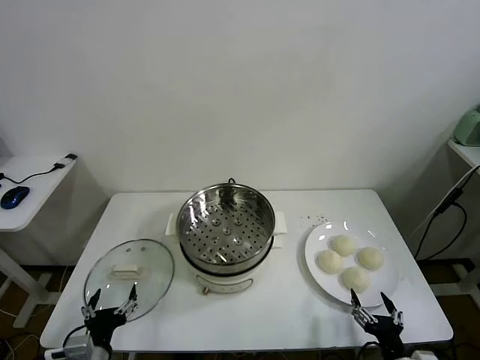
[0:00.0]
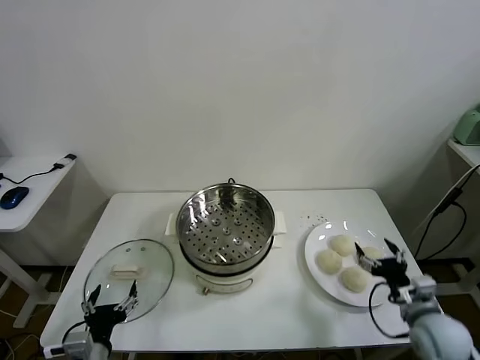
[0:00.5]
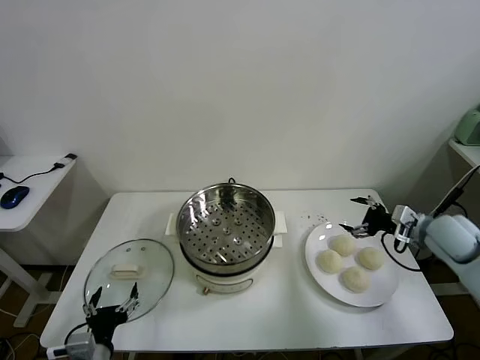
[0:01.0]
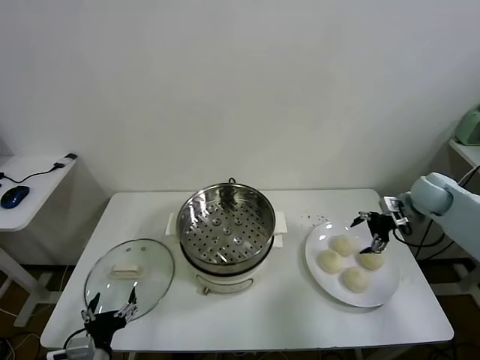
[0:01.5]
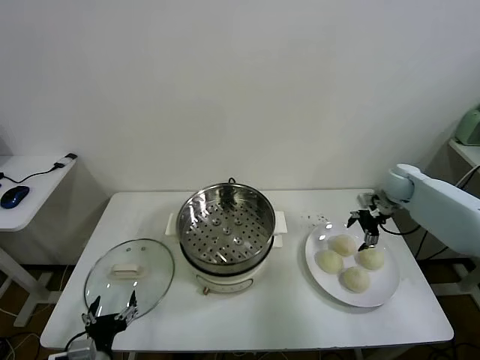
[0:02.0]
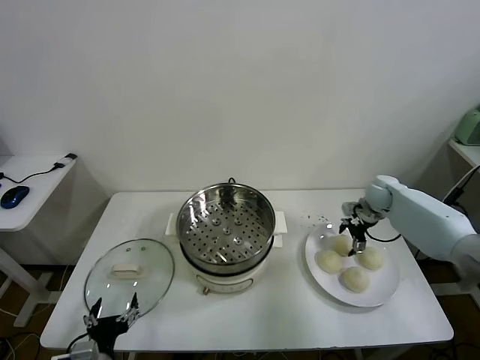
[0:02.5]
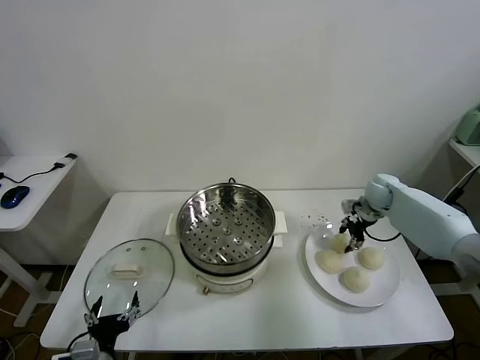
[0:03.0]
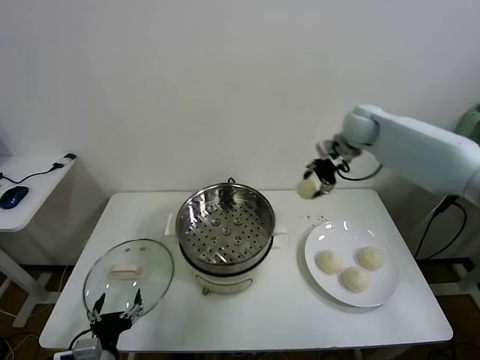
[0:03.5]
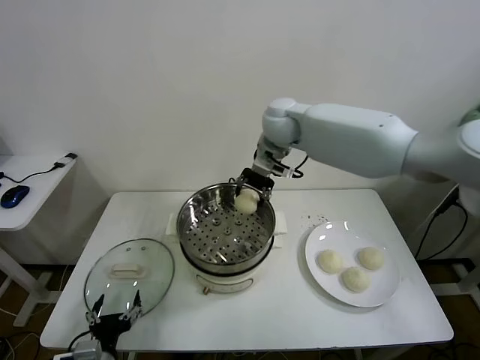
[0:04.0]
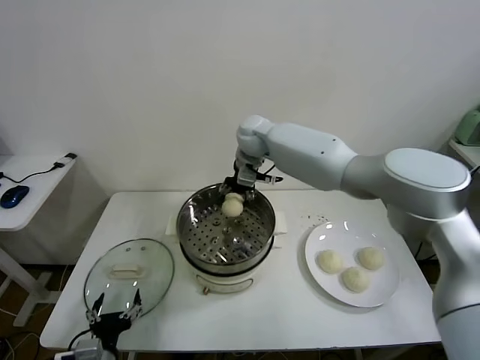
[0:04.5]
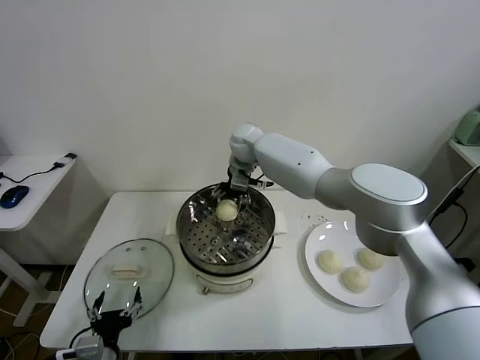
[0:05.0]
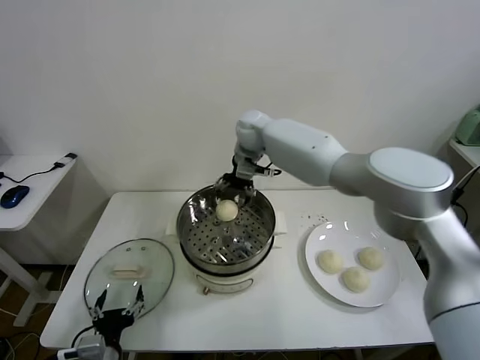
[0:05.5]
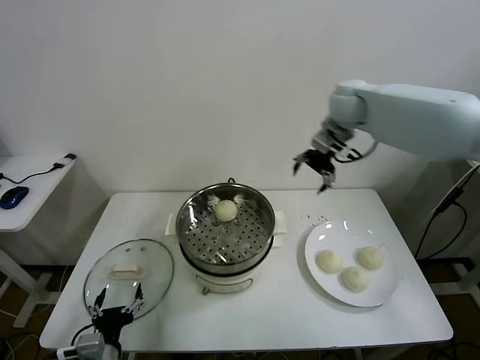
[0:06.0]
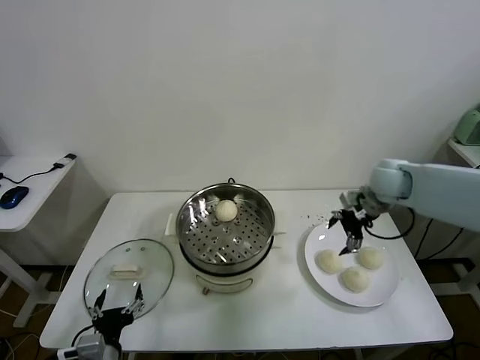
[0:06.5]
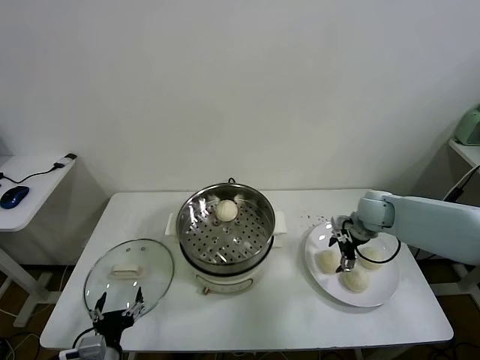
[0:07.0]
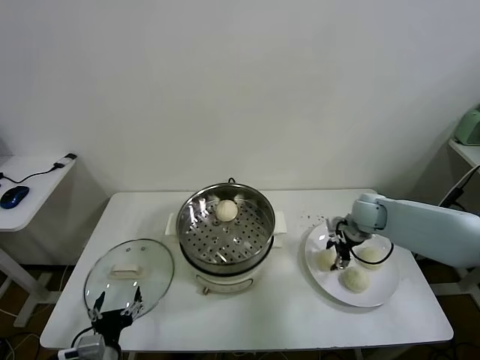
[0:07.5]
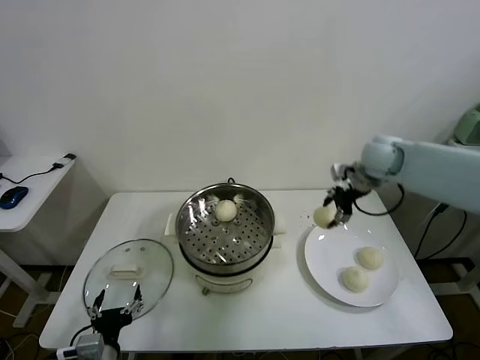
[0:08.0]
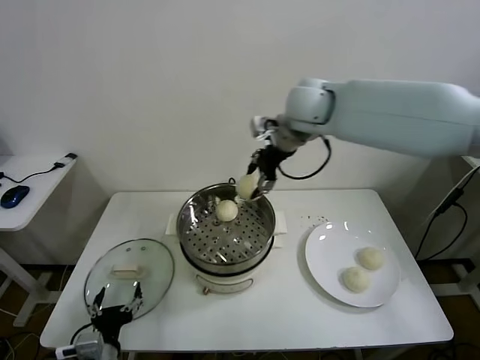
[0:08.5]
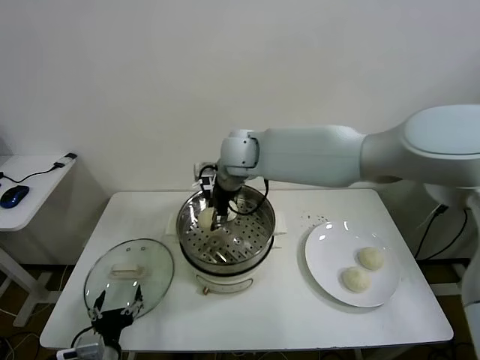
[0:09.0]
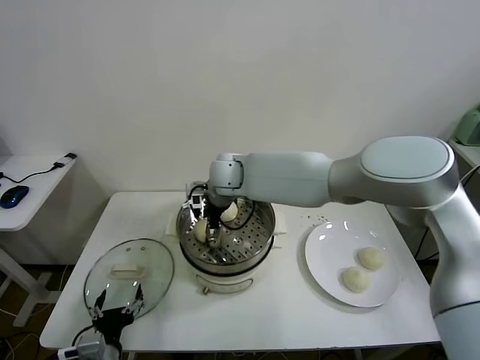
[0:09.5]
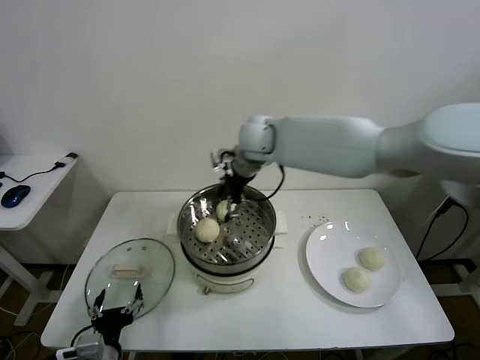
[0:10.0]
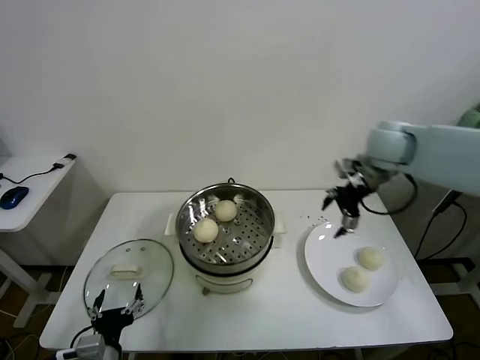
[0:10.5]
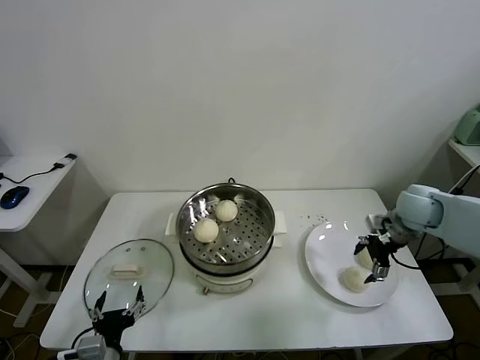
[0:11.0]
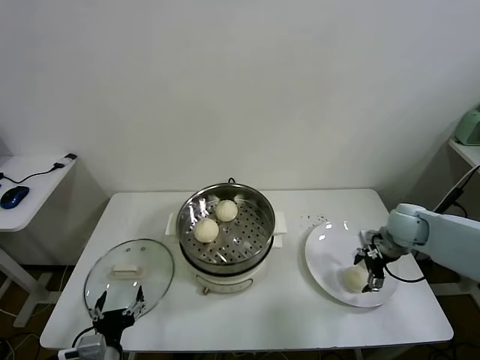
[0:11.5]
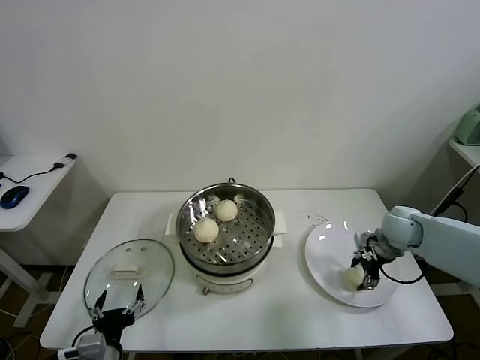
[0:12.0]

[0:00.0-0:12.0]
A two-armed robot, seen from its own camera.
Task of the whole recording: take steamed baozi put them in steamer.
Step, 0:00.0 to 0:02.5: Grasp the baozi in the plate with right gripper.
Step, 0:03.0 to 0:05.0: Place the baozi on the steamer with right gripper.
Step, 0:05.5 to 0:07.0: Grasp the baozi in the plate with right gripper.
Step, 0:08.0 to 0:09.5: Place the baozi on the steamer with right gripper.
Step, 0:10.0 to 0:12.0: Grasp the baozi in the plate with right gripper.
0:02.0 to 0:04.0: The right gripper shifts approximately 40 cm to the left and upward, and closes up.
0:04.0 to 0:06.0: The right gripper travels to the right by approximately 20 cm, and opens.
0:06.0 to 0:08.0: The right gripper travels downward and back again, some 20 cm each way, and closes its fingers.
0:08.0 to 0:10.0: The right gripper heads to the left, covering some 20 cm, and opens up.
0:10.0 to 0:12.0: The right gripper goes about 35 cm to the right and downward, and closes its fingers.

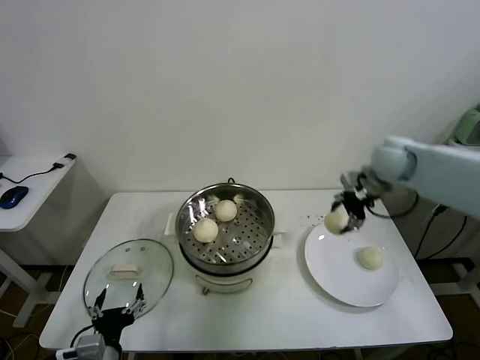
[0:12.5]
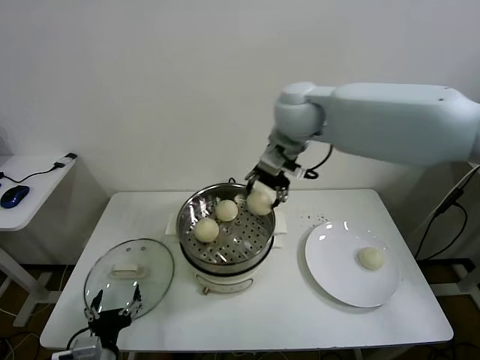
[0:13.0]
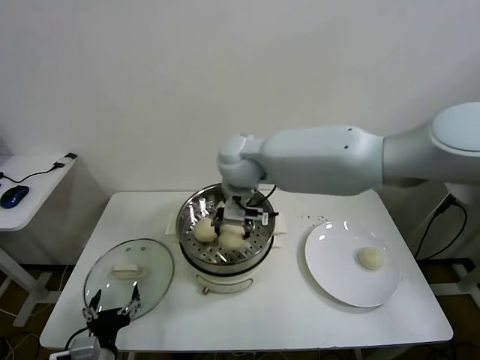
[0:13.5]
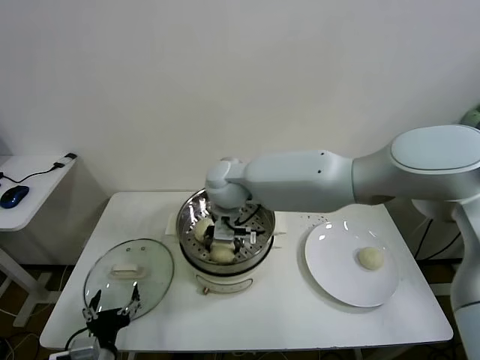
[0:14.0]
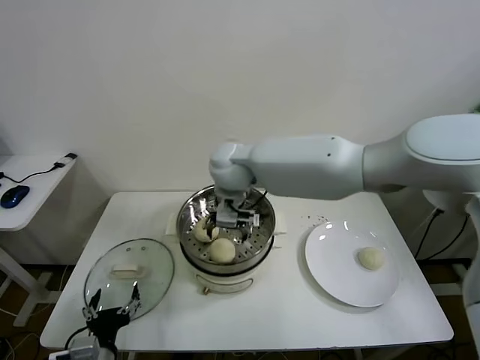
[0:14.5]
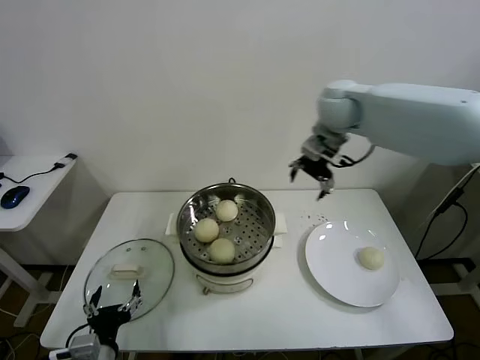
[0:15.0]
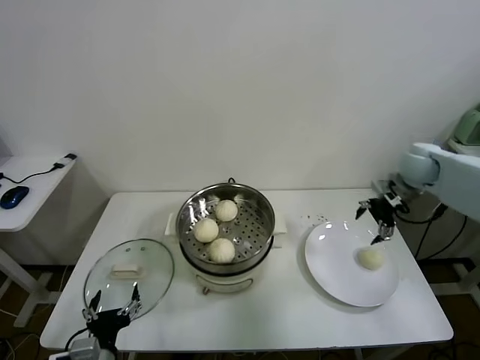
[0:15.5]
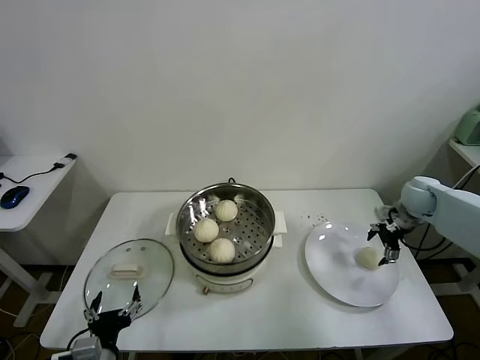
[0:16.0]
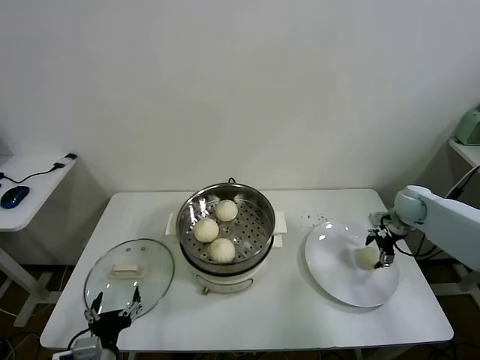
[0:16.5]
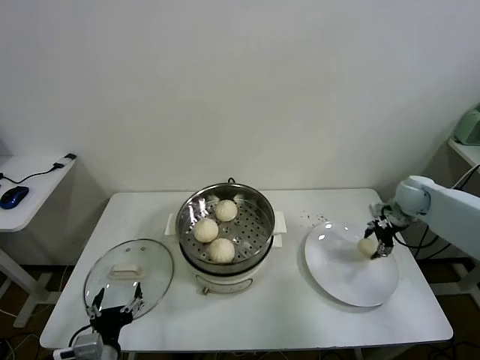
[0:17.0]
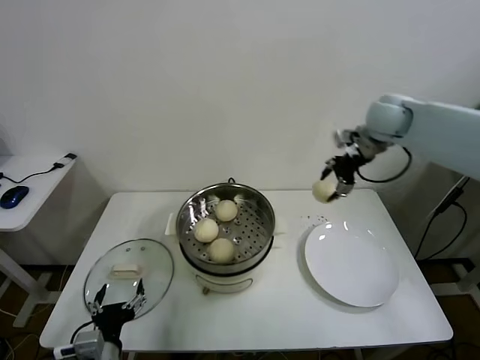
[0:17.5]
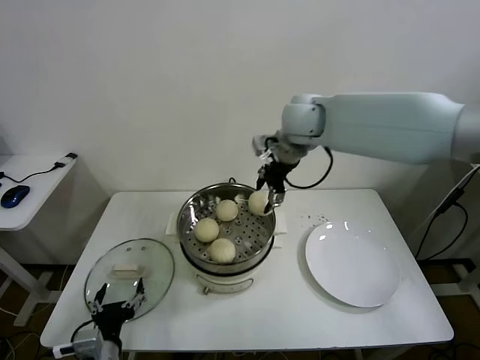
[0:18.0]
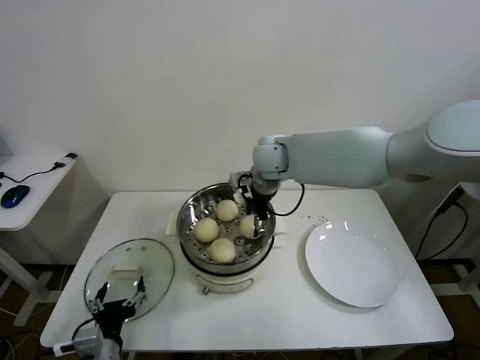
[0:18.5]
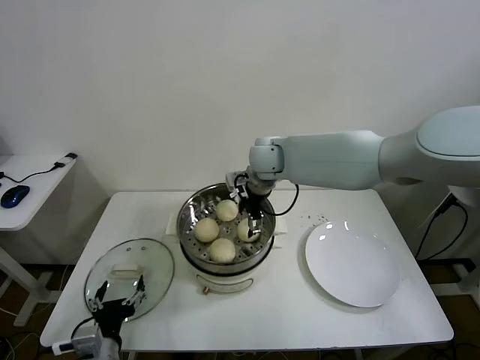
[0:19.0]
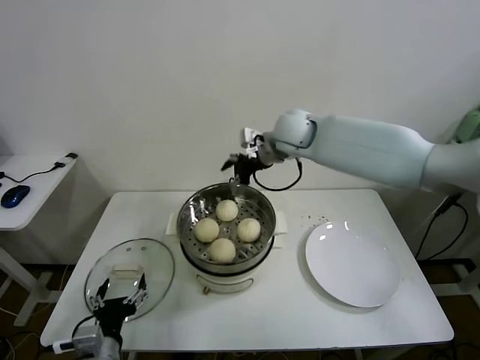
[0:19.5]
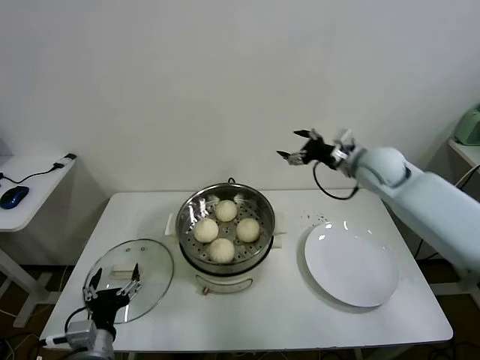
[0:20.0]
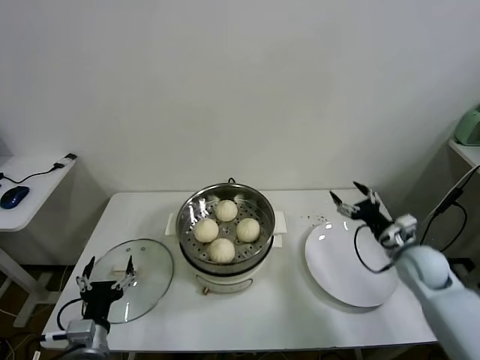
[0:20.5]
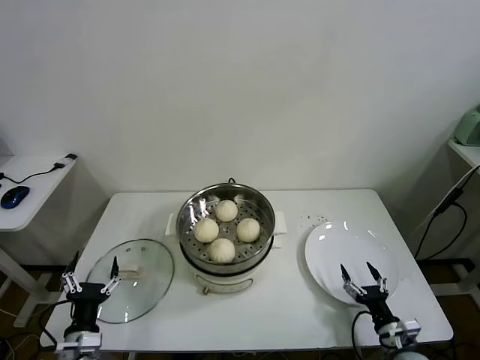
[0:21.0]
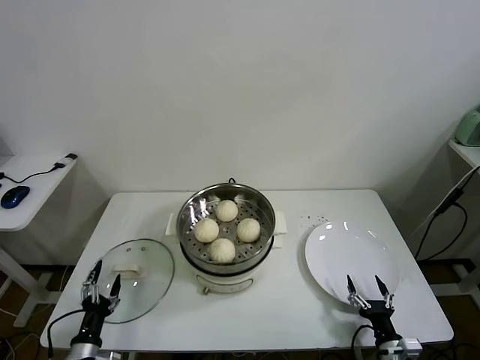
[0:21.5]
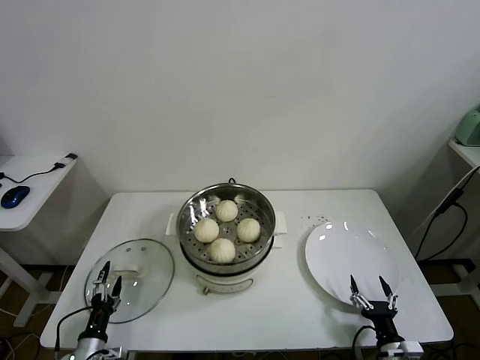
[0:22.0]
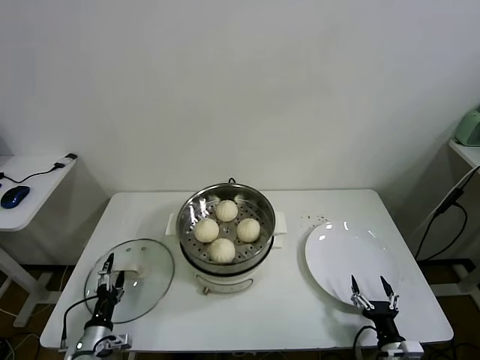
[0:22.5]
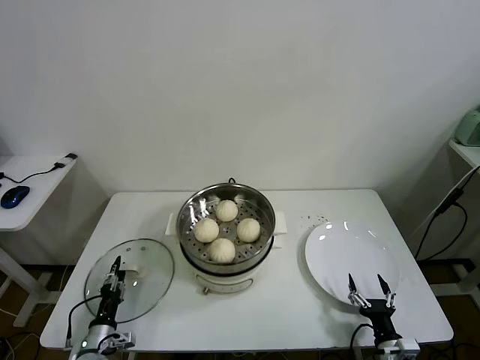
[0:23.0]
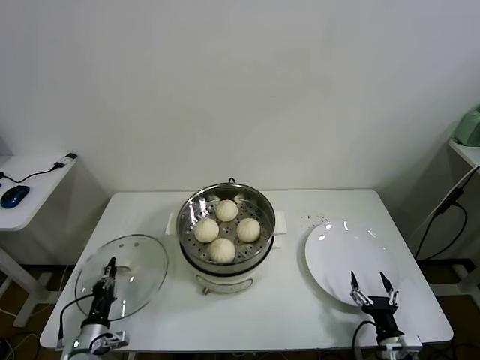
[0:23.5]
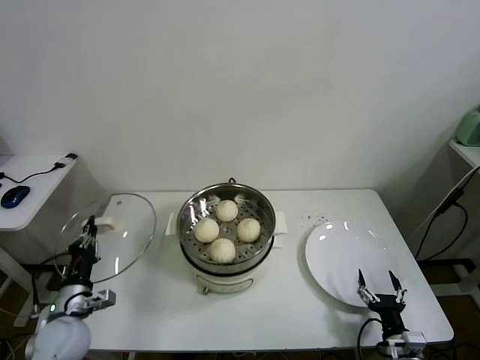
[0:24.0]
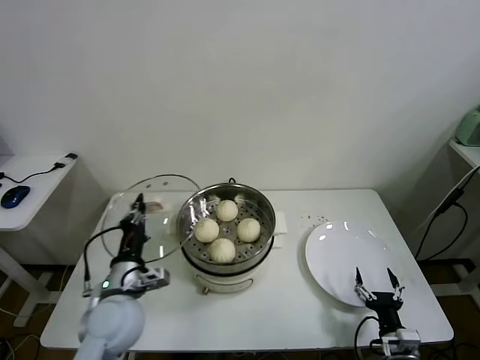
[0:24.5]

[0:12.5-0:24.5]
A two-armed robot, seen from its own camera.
Task of the whole recording: take steamed baozi put them in steamer.
Step, 0:12.5 to 0:14.0: Place the baozi on the steamer with right gripper.
Step, 0:14.5 to 0:16.5: Grasp the baozi in the plate with right gripper.
Step, 0:17.0 to 0:18.5: Place the baozi on the steamer with right gripper.
Step, 0:19.0 to 0:23.0: Grasp the pot lid with left gripper.
0:12.5 to 0:14.5: The right gripper goes some 35 cm to the left, and opens.
0:14.5 to 0:16.5: The right gripper is displaced to the right by about 50 cm.
0:16.5 to 0:18.5: The right gripper is displaced to the left and upward by some 40 cm, and closes.
0:18.5 to 0:20.5: The right gripper heads to the right, downward and backward, covering some 40 cm, and opens.
0:20.5 to 0:22.5: The right gripper moves backward and downward, some 30 cm, while the left gripper goes about 15 cm downward and to the left.
0:22.5 to 0:24.5: The left gripper goes some 25 cm upward and to the right, and closes up.

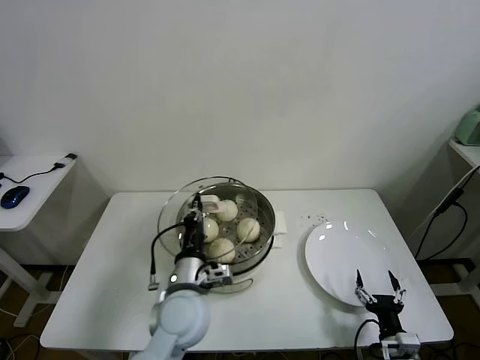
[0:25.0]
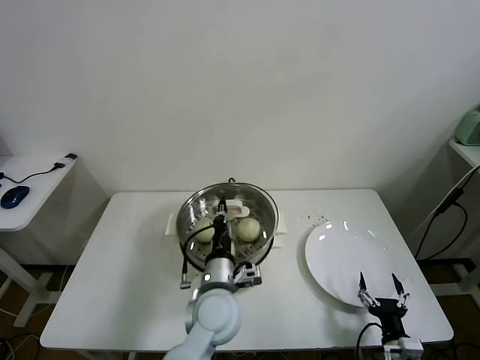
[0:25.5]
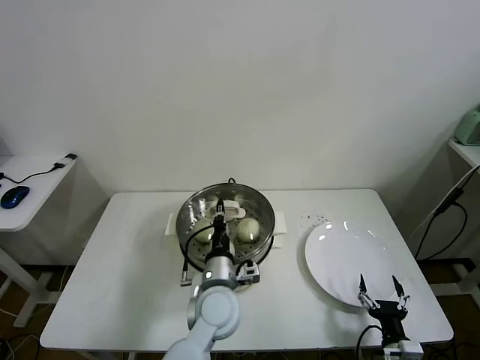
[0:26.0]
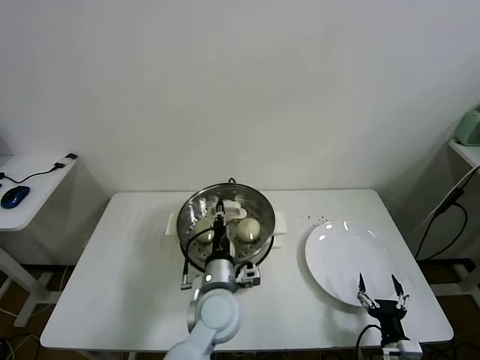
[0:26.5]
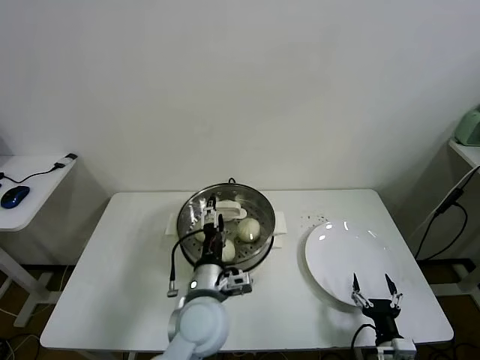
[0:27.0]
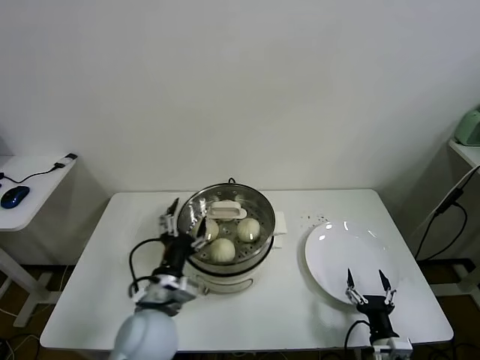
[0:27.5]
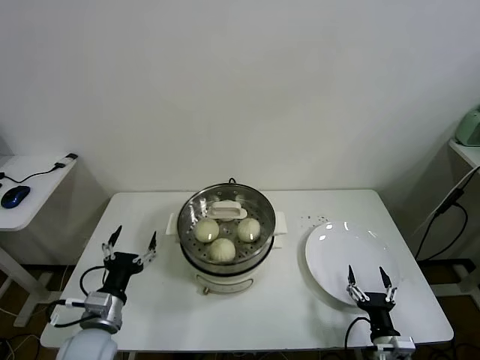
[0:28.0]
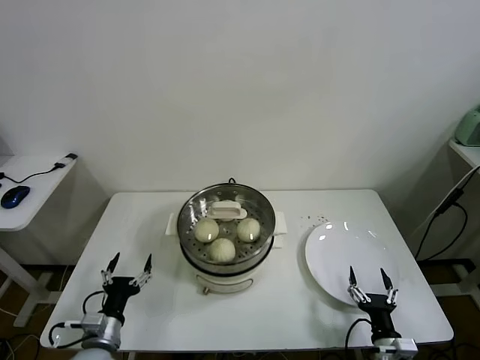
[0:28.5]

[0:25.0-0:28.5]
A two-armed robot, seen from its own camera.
Task of the whole recording: take steamed baozi put them in steamer.
0:25.0 to 0:27.0: The left gripper heads to the right, covering some 5 cm, and opens.
0:27.0 to 0:28.5: The left gripper shifts some 25 cm to the left and downward.
